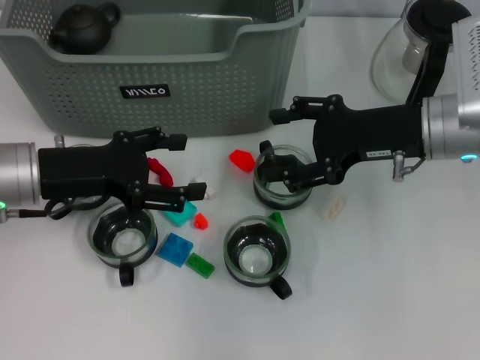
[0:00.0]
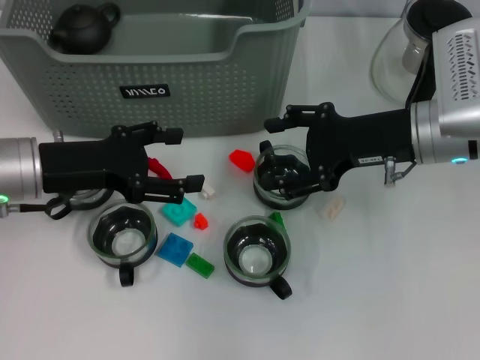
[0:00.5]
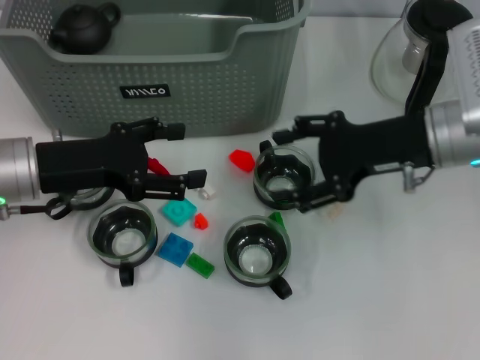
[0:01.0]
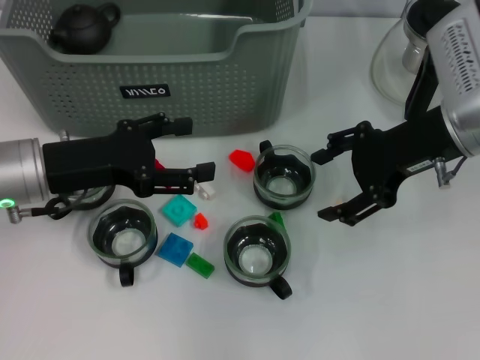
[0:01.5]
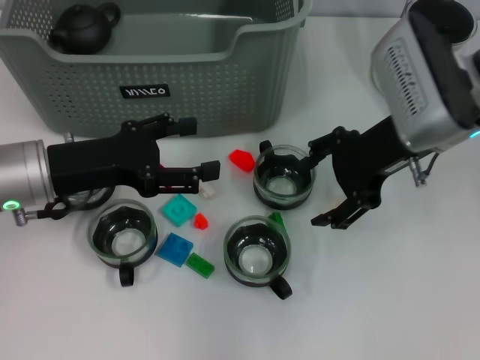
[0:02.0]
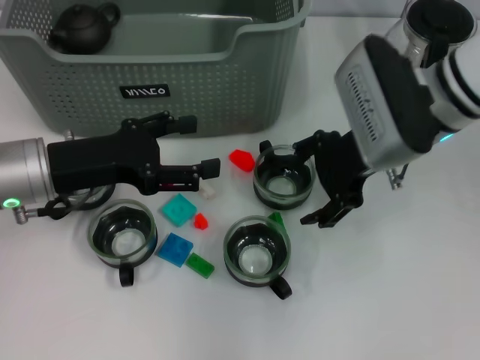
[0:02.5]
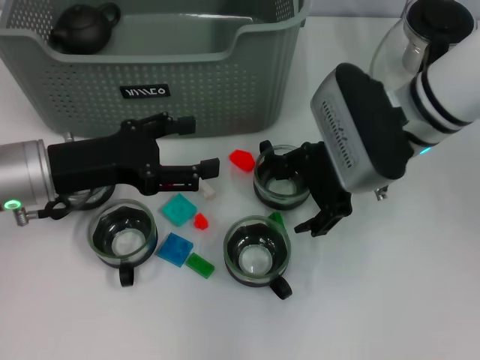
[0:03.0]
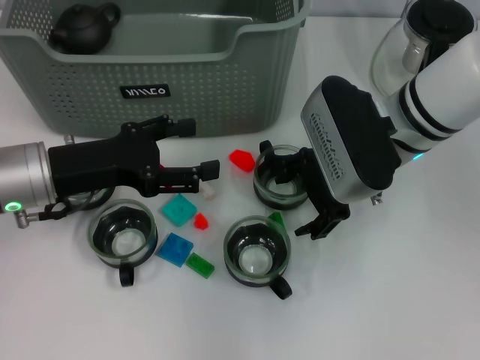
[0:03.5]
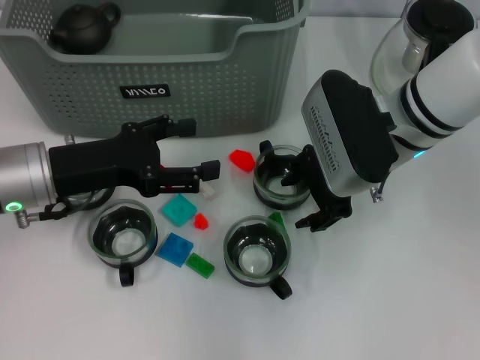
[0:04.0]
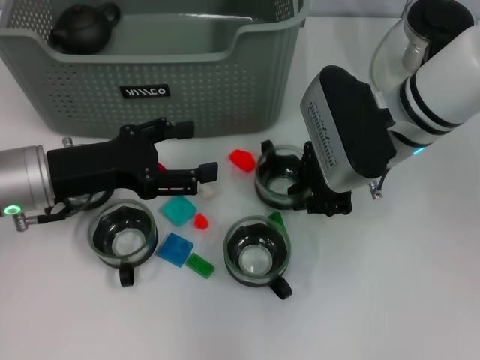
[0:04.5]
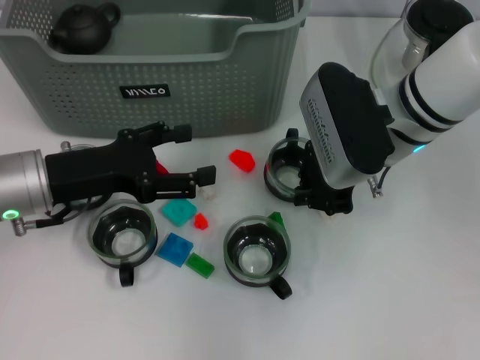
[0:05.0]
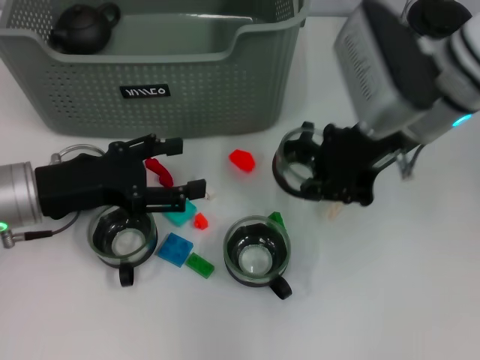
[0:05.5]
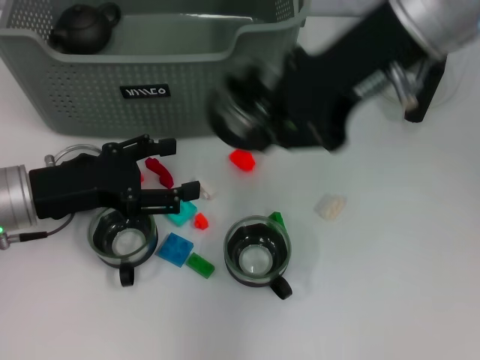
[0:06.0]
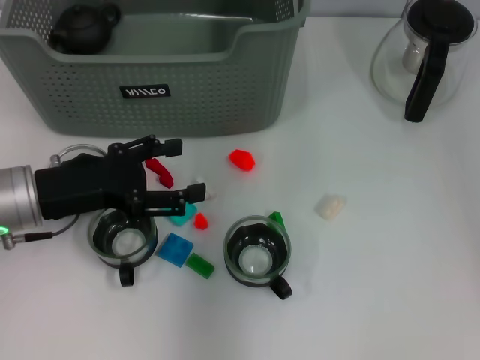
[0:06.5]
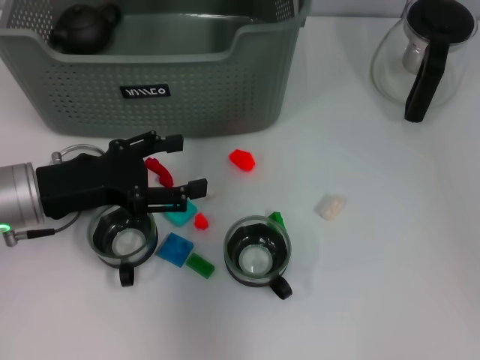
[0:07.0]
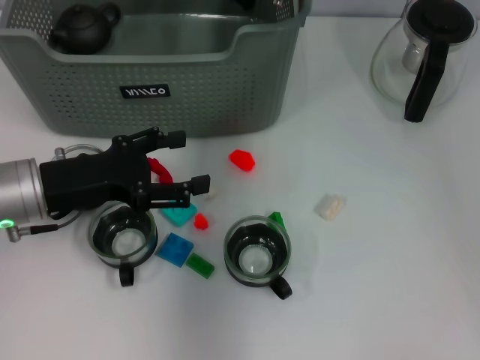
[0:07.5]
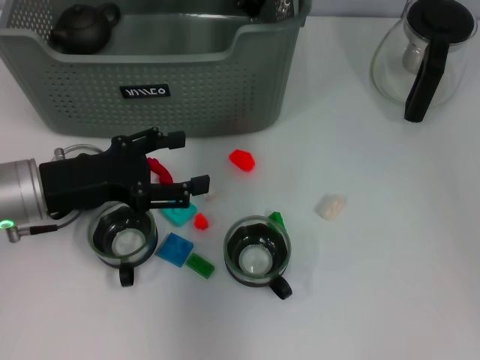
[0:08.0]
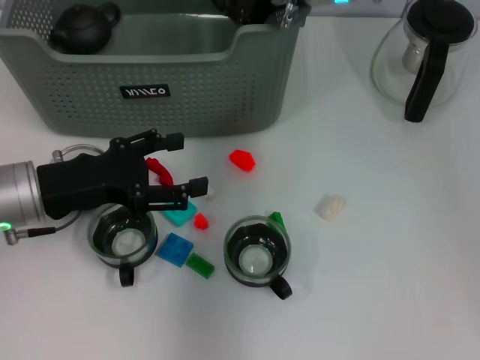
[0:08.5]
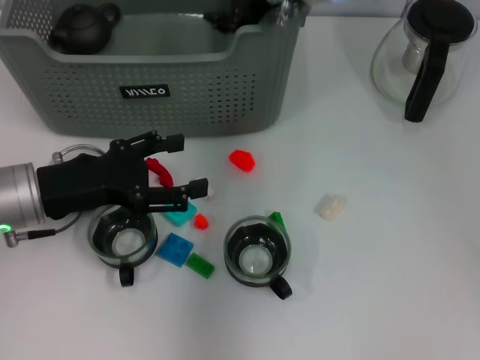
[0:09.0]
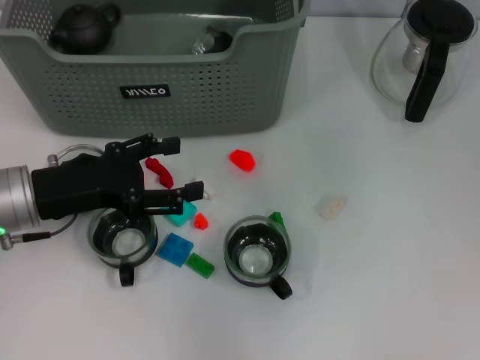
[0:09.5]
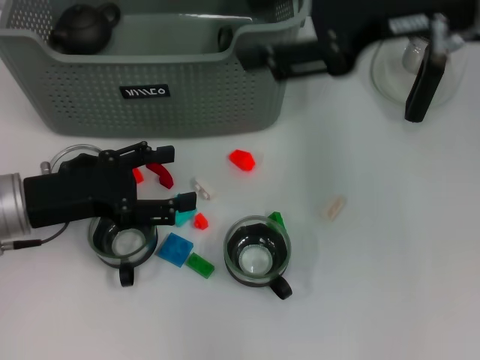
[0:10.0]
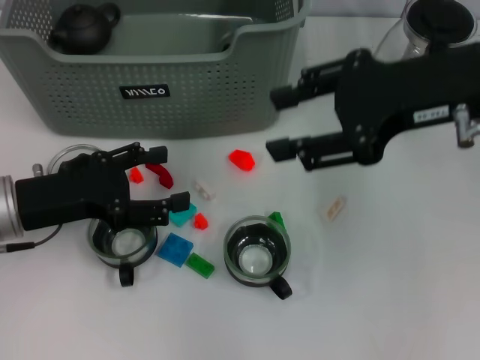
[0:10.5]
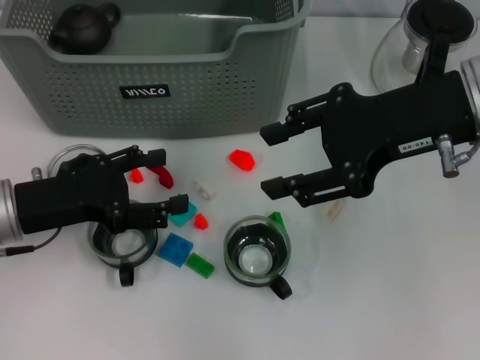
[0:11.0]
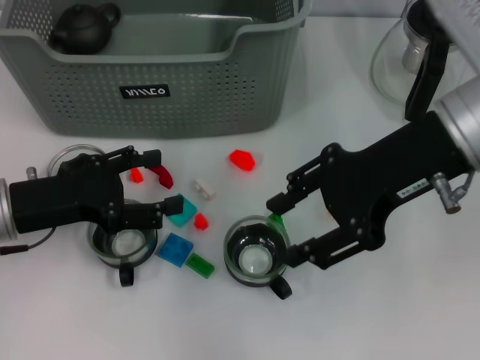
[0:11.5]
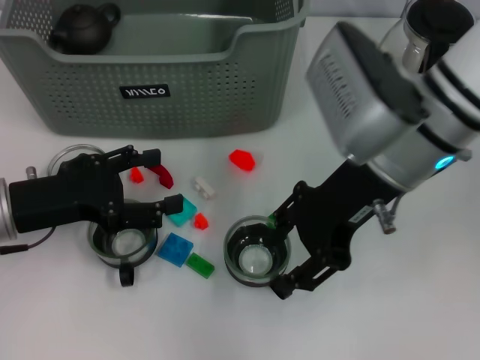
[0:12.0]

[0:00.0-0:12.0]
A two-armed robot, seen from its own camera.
Task of the whole recording: pick up the teacup on the table and place it into the storage bin, pick up the block on the table and place it into the storage bin.
Step, 0:00.0 to 0:04.5: Grasp the cup with right gripper.
Step, 0:05.0 to 0:09.0: Place the cup in the storage box with right gripper.
0:02.0 to 0:04.0: The right gripper ends up some 5 cm from where it was.
0:04.0 to 0:06.0: The right gripper heads upward, covering about 15 cm, and closes up.
0:06.0 to 0:08.0: The right gripper travels forward and downward by roughly 15 cm.
0:08.0 to 0:10.0: The right gripper shifts roughly 20 cm backward, to the right and upward, and opens its fingers.
0:10.0 to 0:12.0: The right gripper heads downward and to the left, covering approximately 10 cm.

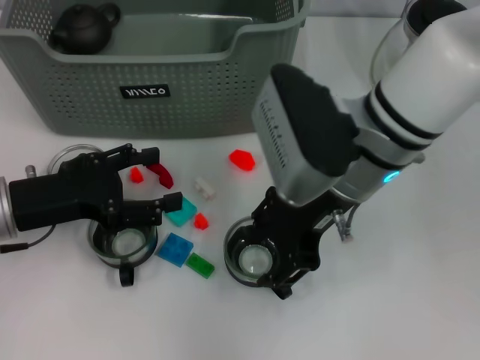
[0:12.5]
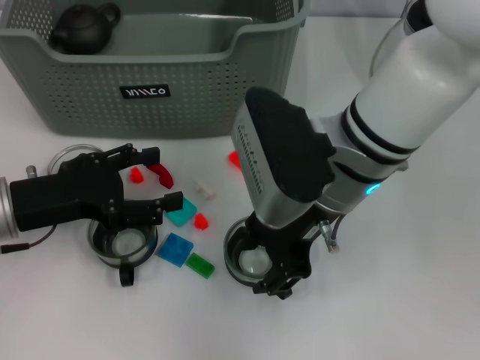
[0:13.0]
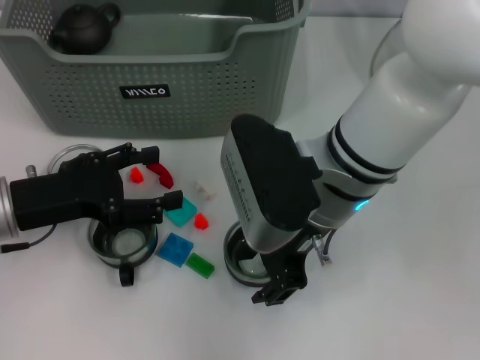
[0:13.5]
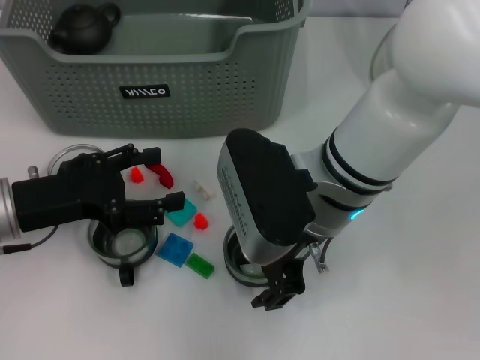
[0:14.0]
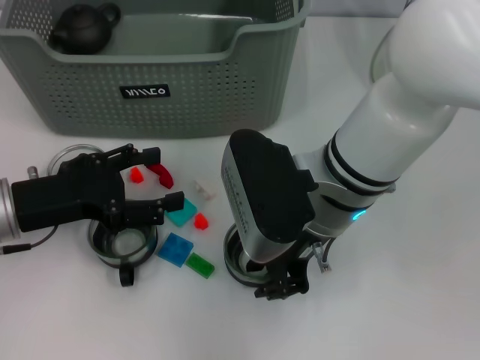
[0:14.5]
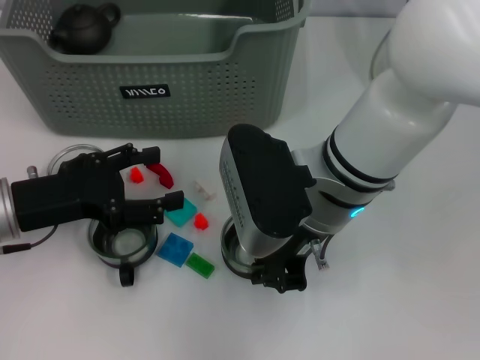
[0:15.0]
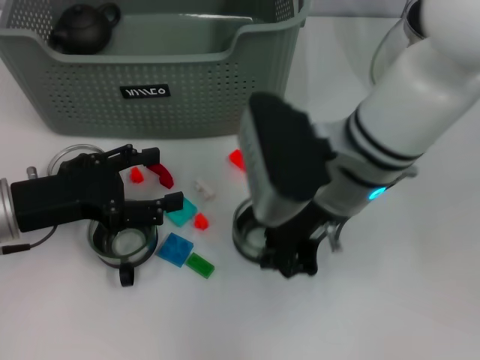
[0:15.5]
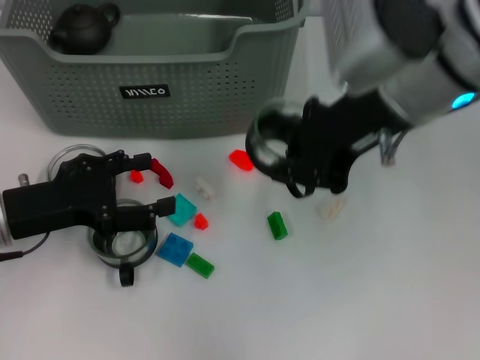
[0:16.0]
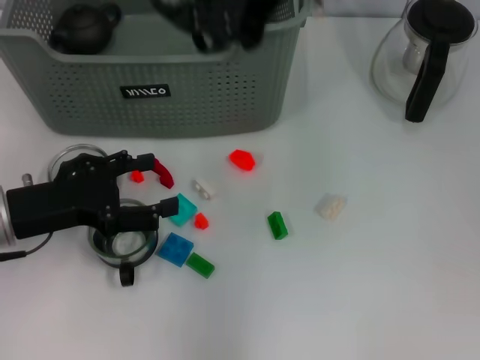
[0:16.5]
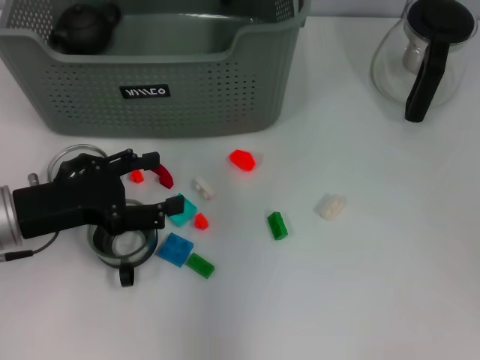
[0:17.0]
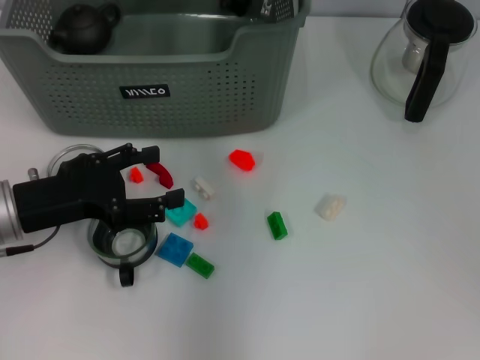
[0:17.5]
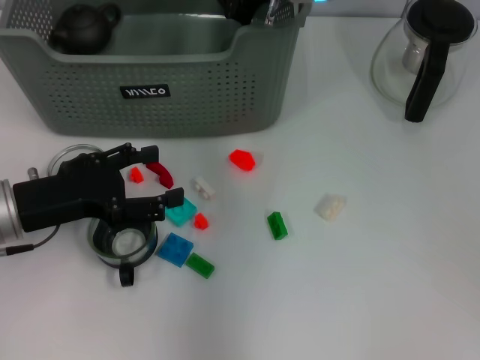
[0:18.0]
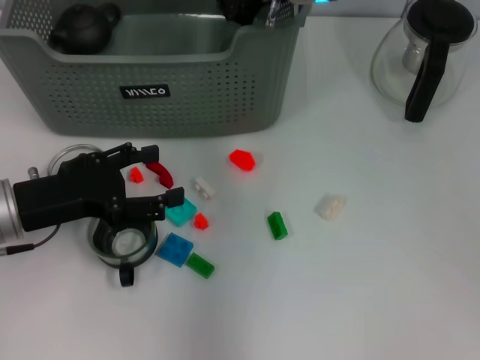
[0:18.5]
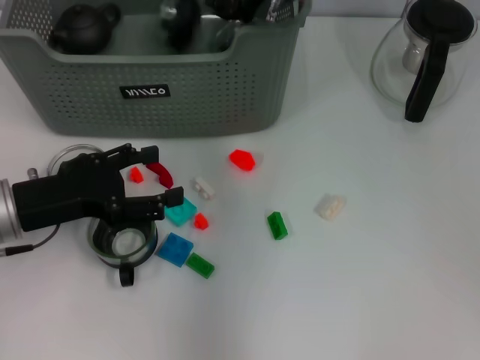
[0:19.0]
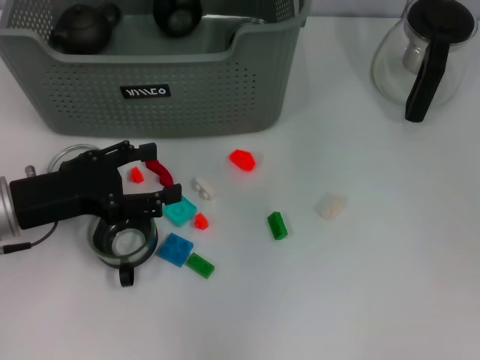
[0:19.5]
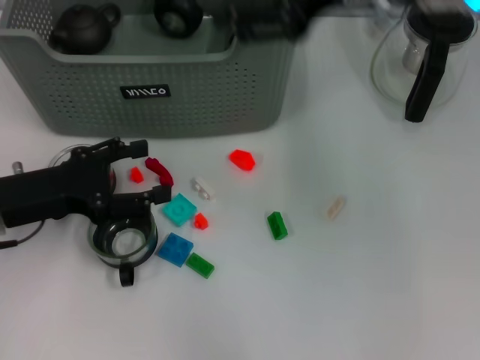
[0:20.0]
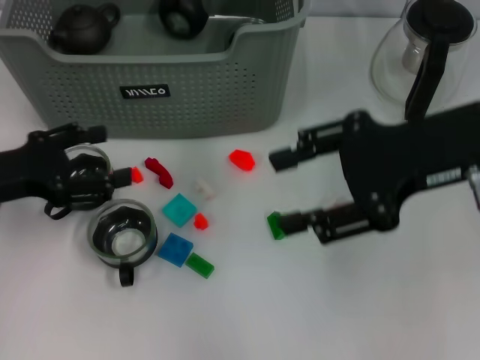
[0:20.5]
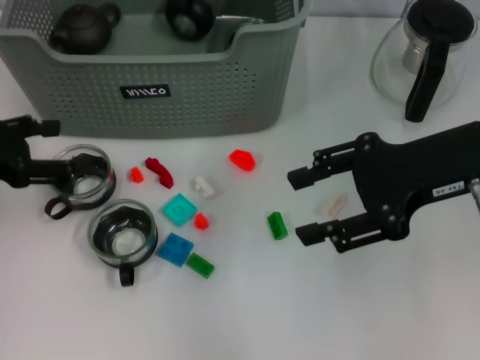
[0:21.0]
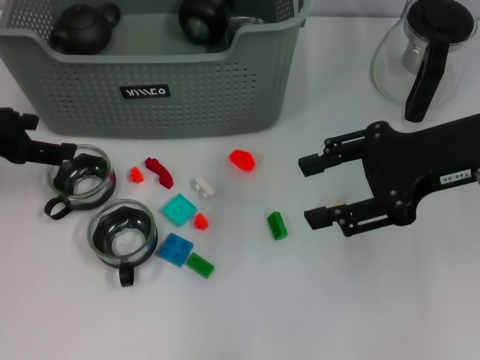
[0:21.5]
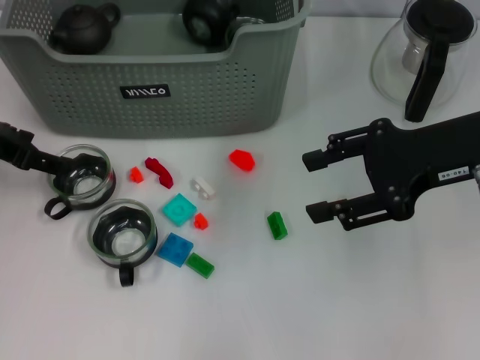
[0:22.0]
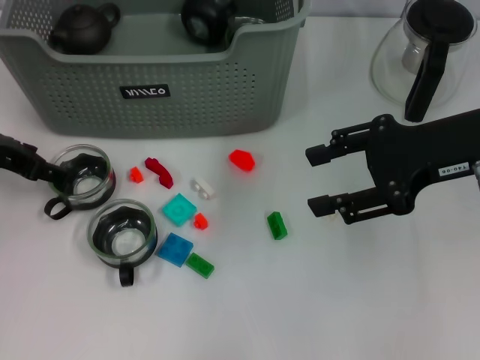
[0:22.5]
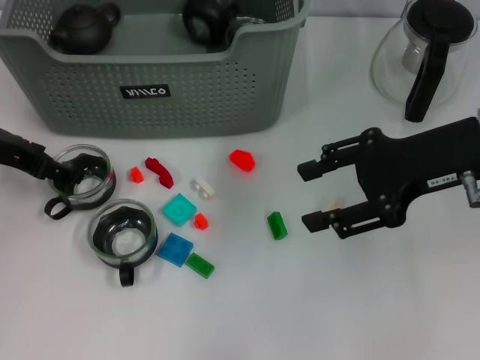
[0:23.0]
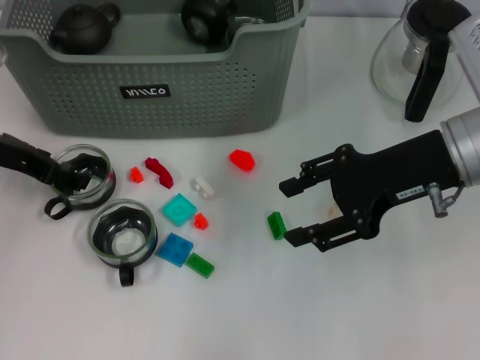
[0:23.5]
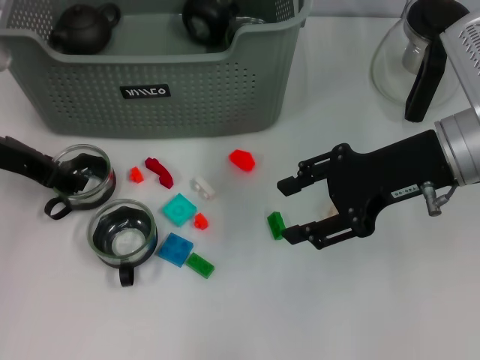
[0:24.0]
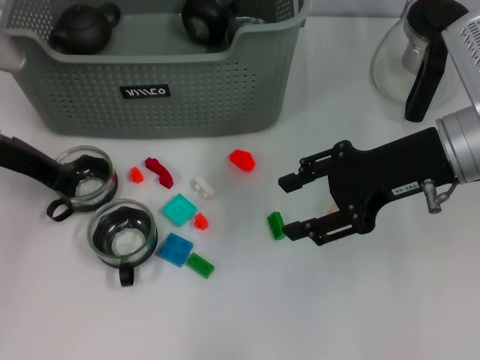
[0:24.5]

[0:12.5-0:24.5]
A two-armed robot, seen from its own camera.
Task of the whole recording: pick up the teacup on the table and place it into the storage bin, pick up the block on the table and place it into the storage bin.
Step, 0:12.5 to 0:14.5: Grasp the cup with right gripper.
Step, 0:15.0 to 0:19.5: Place the cup in the storage box with right gripper.
0:12.5 to 0:14.5: There are only small adjustments of the grippers.
0:14.5 to 0:16.5: The right gripper goes roughly 20 cm upward, and closes.
0:16.5 to 0:18.5: The right gripper goes approximately 15 cm downward and forward.
0:18.5 to 0:20.5: The right gripper shifts some 20 cm backward and to the right, and opens, while the left gripper shifts by some 5 cm.
0:20.5 to 0:22.5: The left gripper heads forward, covering approximately 5 cm.
0:22.5 to 0:24.5: The left gripper closes its fingers.

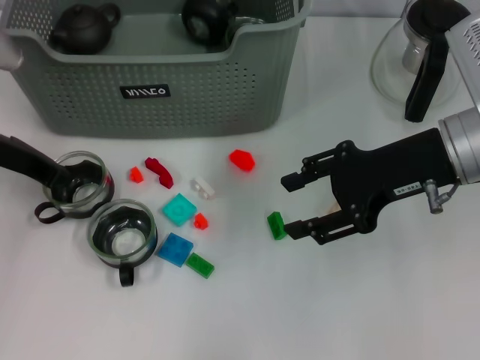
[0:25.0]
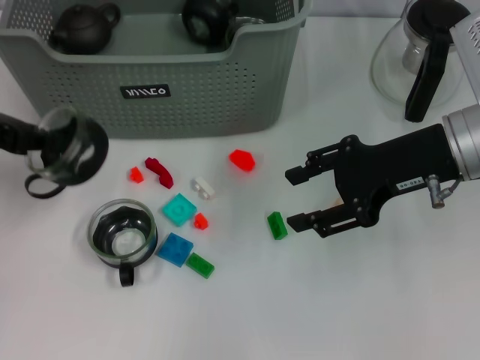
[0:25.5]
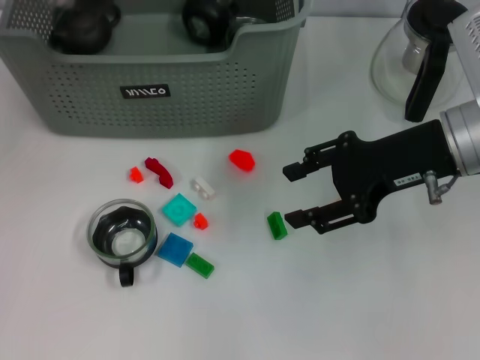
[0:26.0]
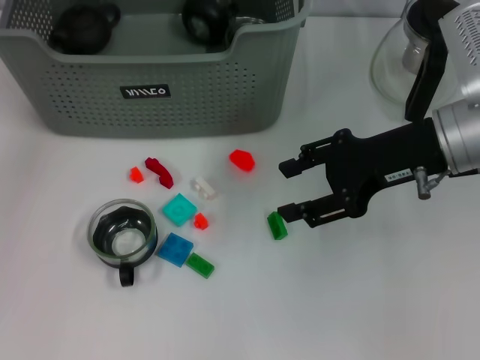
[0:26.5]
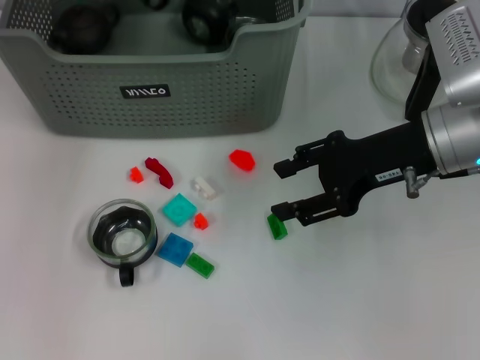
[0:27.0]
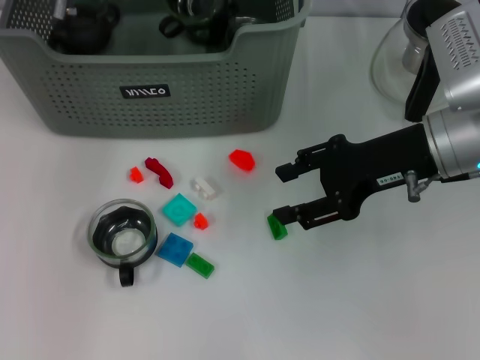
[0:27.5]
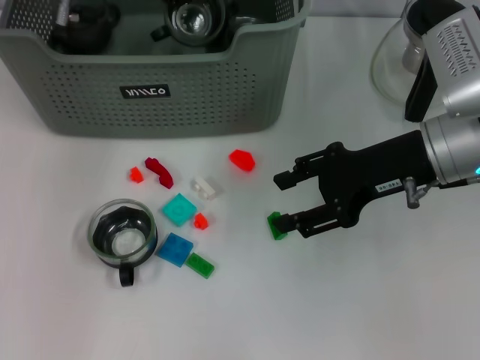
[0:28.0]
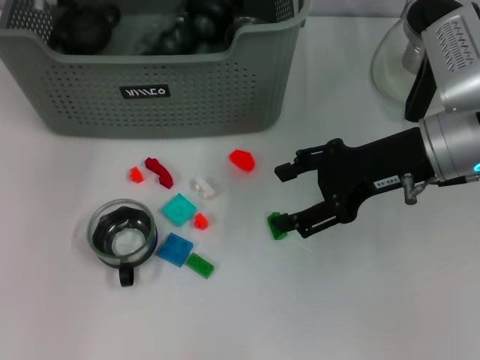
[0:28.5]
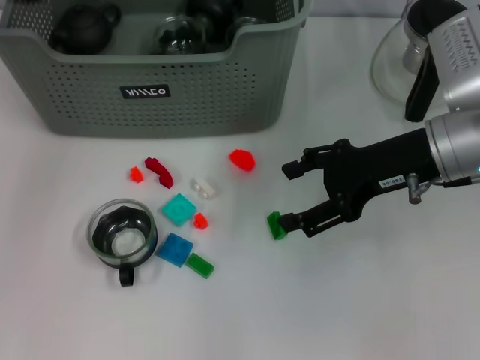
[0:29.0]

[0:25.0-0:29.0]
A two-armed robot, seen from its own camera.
Task of the whole recording: pick up the teacup on the table and place it into the storage bin, pick up the block on the table and place it into the storage bin.
0:25.0 to 0:27.0: The left gripper travels forward, upward and to the right by about 20 cm.
0:27.0 to 0:29.0: The left gripper goes about 5 cm backward, and opens up.
